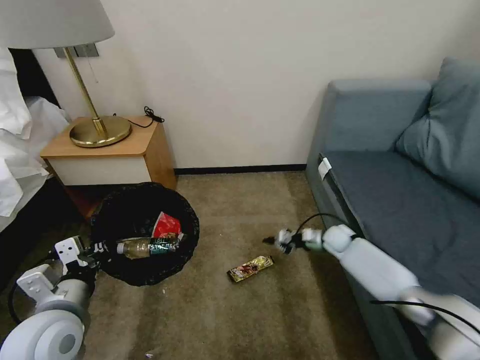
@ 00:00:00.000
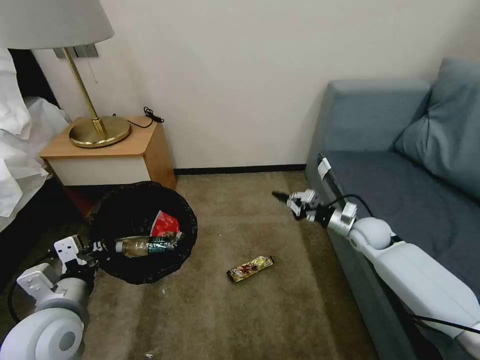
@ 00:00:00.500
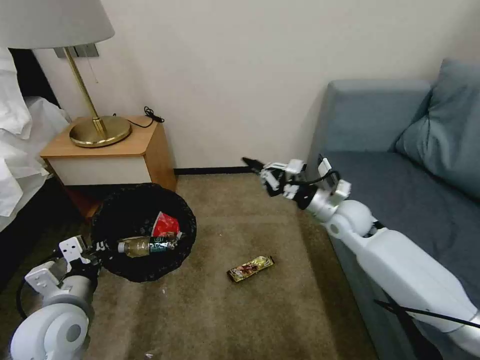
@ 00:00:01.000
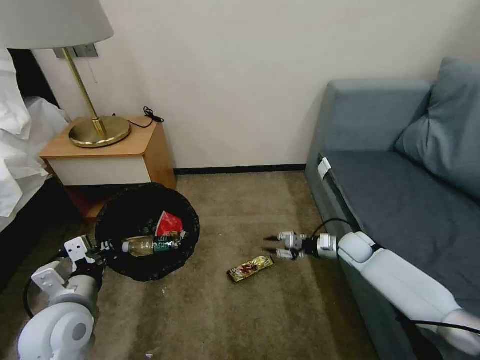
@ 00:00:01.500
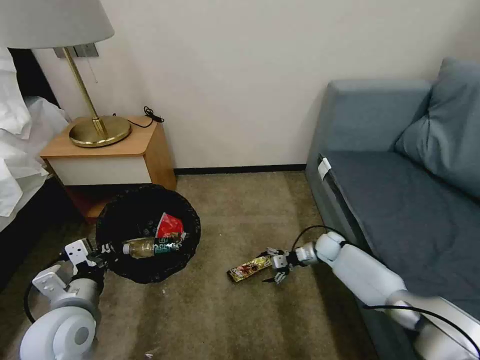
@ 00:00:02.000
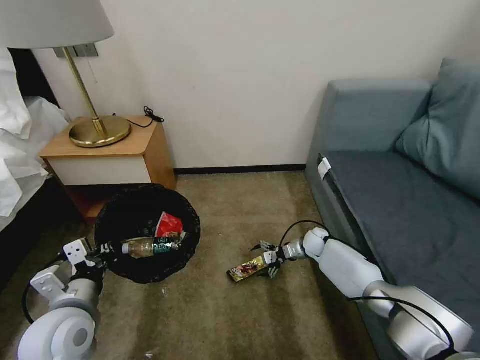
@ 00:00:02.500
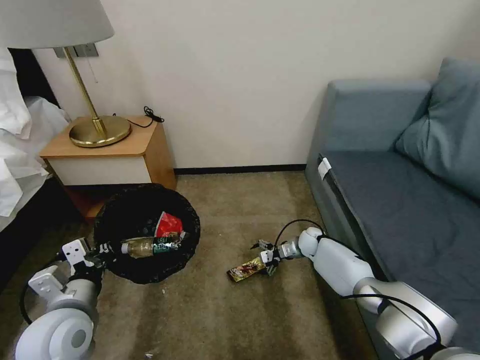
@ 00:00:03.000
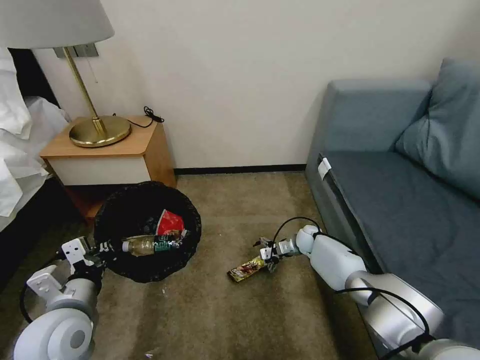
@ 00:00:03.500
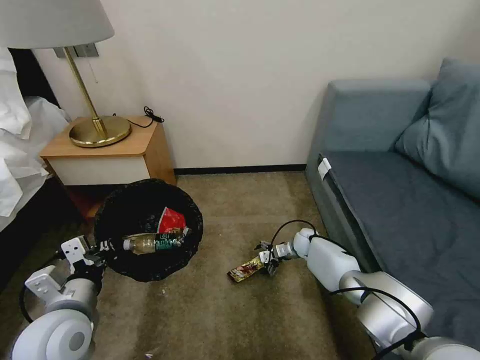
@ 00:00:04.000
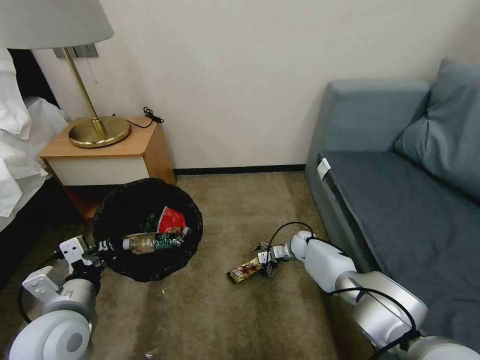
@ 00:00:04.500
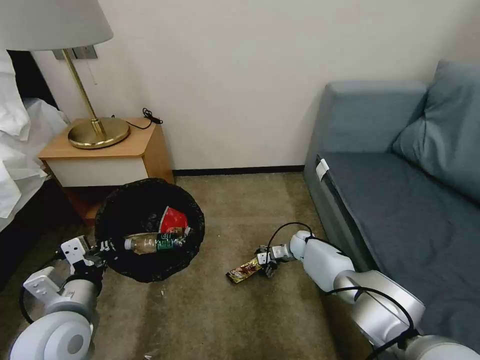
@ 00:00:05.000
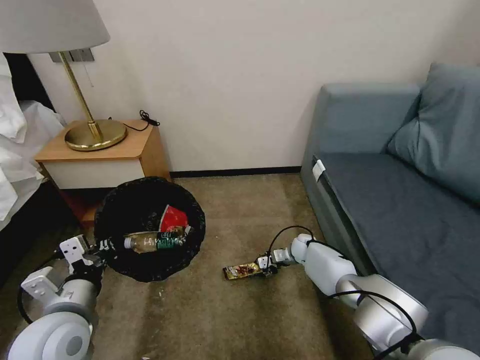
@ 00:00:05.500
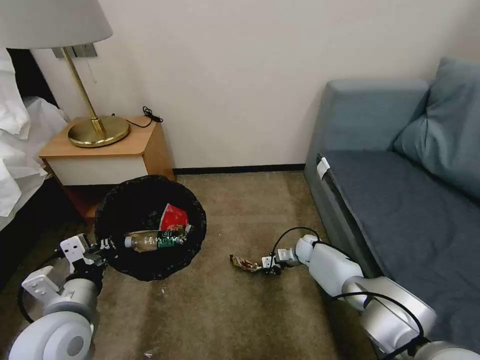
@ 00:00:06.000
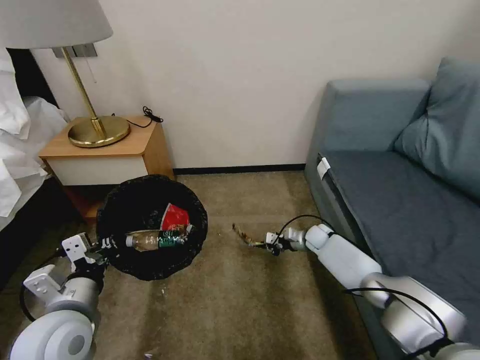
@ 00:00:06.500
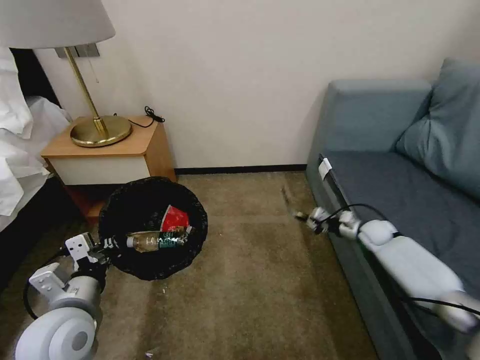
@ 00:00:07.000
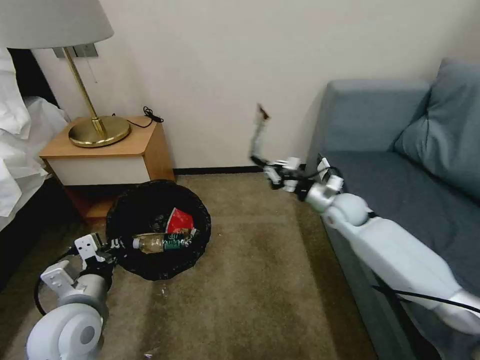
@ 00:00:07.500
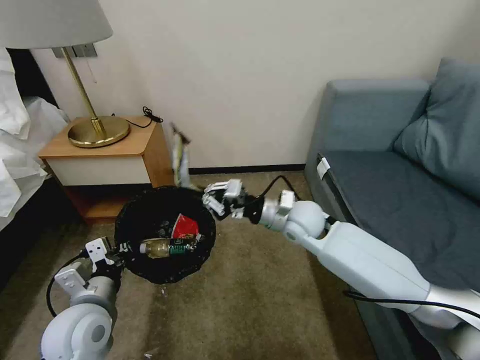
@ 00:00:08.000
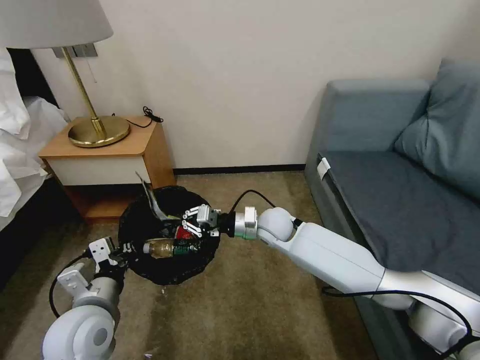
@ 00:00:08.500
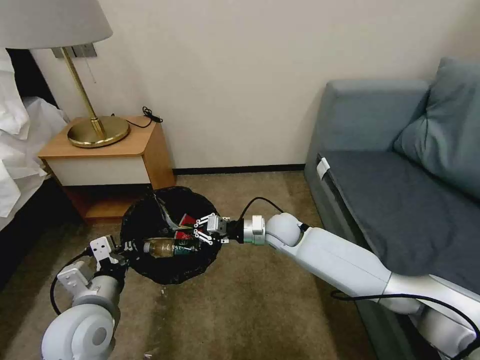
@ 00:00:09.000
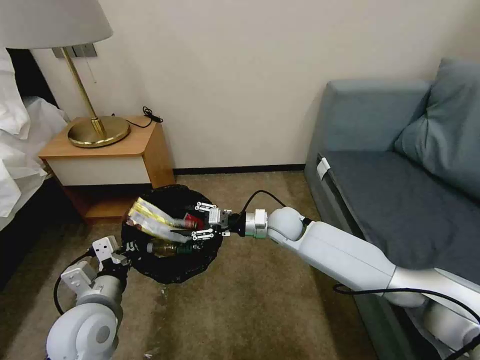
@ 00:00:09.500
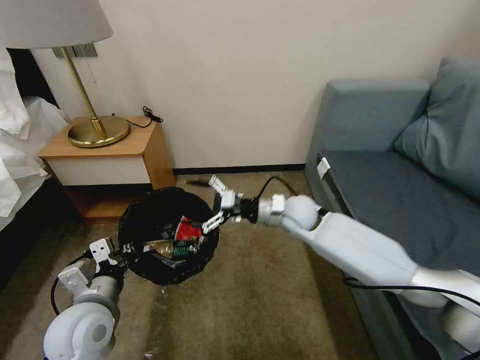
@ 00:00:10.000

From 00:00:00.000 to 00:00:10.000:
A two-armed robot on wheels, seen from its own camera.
Task of the whole recording: Pick up the trash bin, then pick up the garbage on the floor and place it into the trash bin.
From 00:00:00.000 to 00:00:02.000: The right gripper goes upward and returns, some 20 cm each way, and opens.
From 00:00:02.000 to 00:00:04.000: The right gripper heads to the left, covering about 5 cm.
From 00:00:04.000 to 00:00:06.000: The right gripper closes up.
From 00:00:06.000 to 00:00:08.000: The right gripper goes approximately 25 cm upward.
From 00:00:08.000 to 00:00:10.000: The right gripper goes downward and returns, roughly 10 cm each way, and opens up.

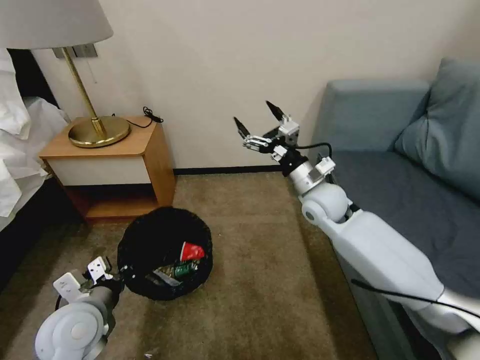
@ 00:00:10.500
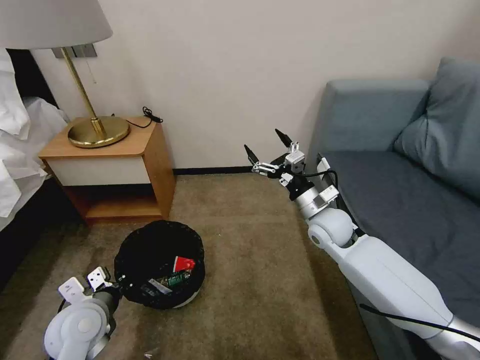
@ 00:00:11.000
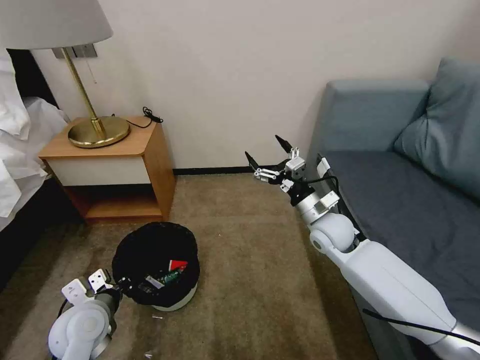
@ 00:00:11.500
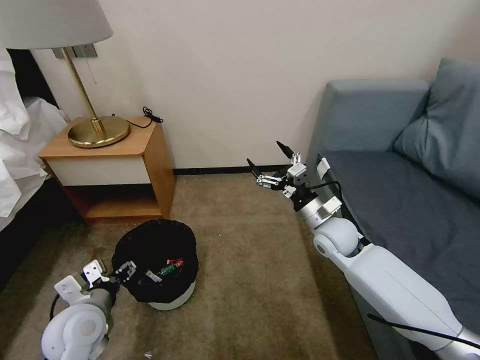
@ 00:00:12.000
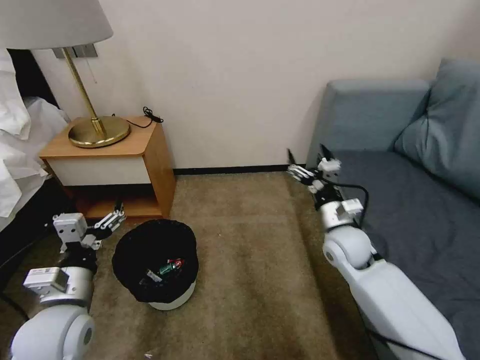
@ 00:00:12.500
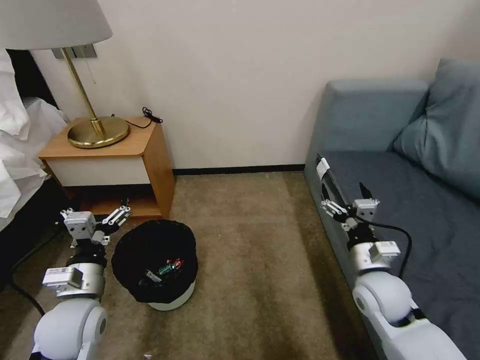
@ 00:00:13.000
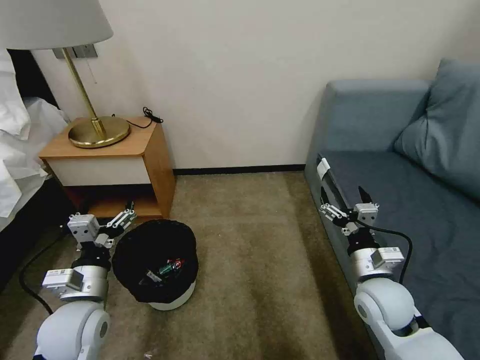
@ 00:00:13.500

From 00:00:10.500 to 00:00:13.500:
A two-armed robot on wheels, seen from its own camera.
Task of the whole recording: Pick up the trash bin, then pick up the garbage on the floor and place it into the trash bin.
From 00:00:10.500 to 00:00:12.000: The right gripper is displaced downward by roughly 10 cm, while the left gripper opens its fingers.
From 00:00:12.000 to 00:00:13.500: The right gripper moves backward, roughly 15 cm.
